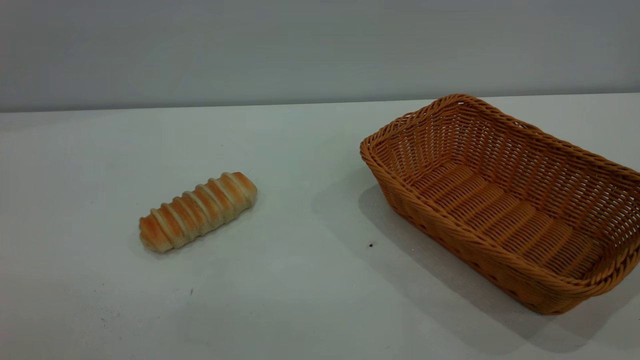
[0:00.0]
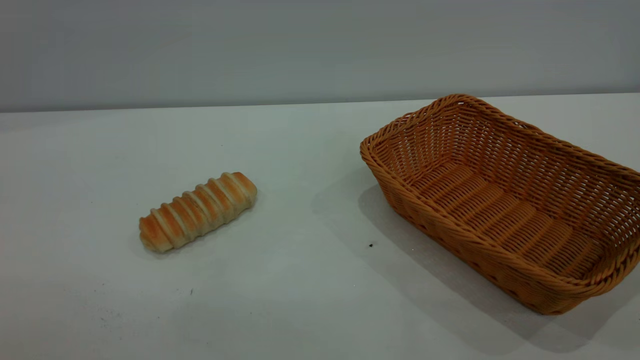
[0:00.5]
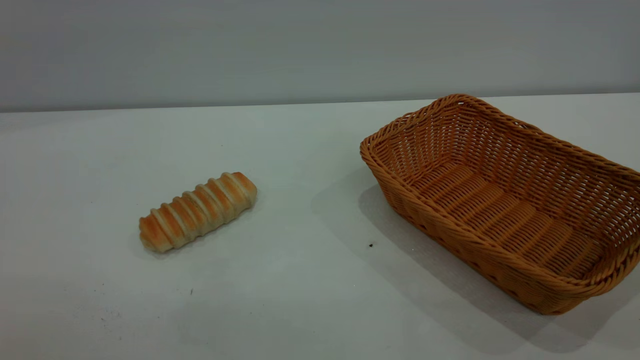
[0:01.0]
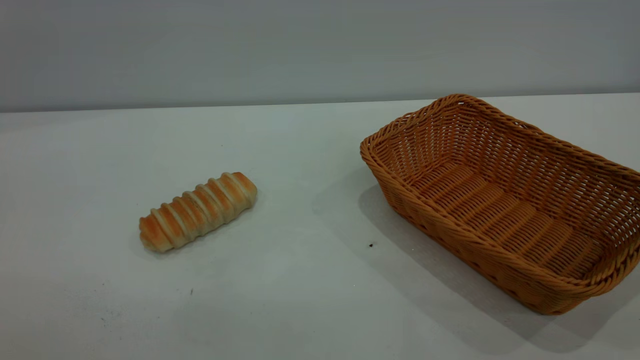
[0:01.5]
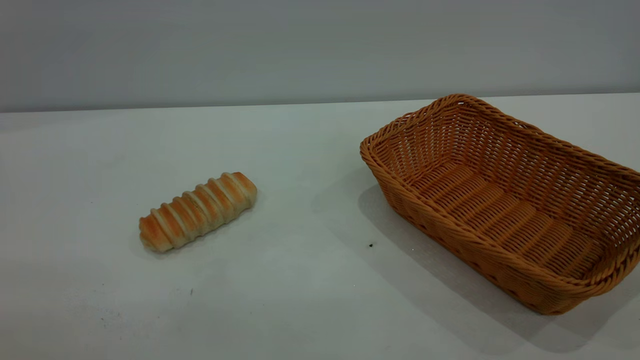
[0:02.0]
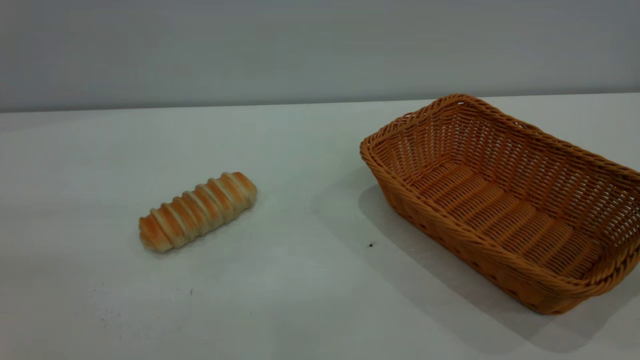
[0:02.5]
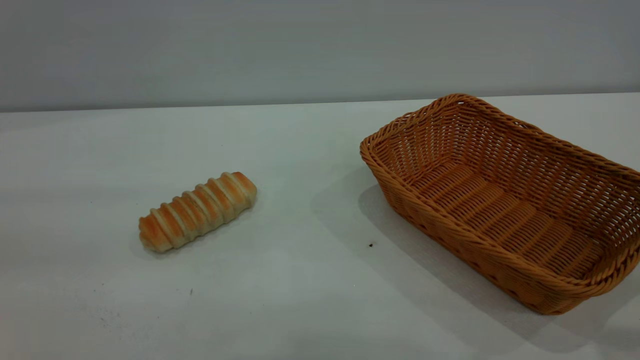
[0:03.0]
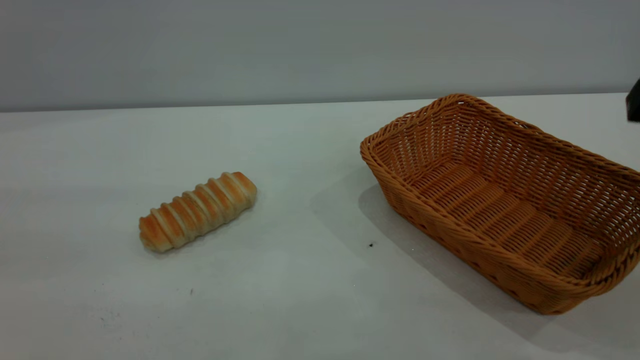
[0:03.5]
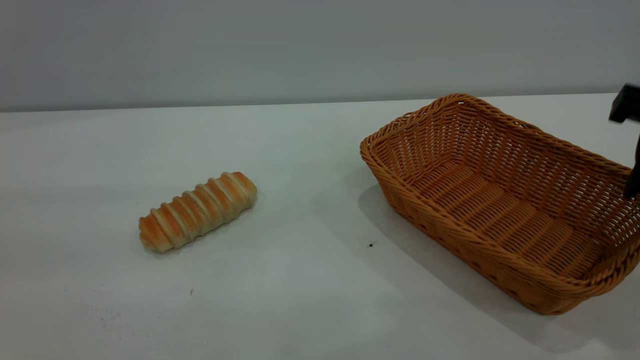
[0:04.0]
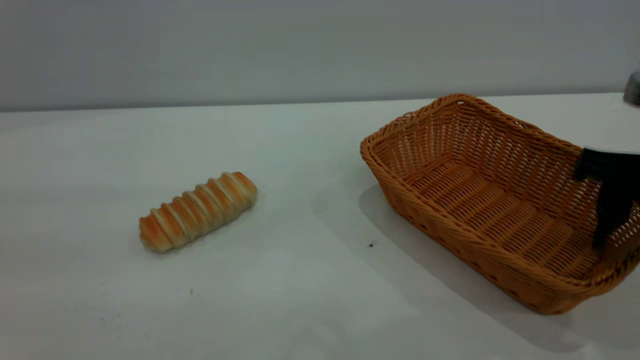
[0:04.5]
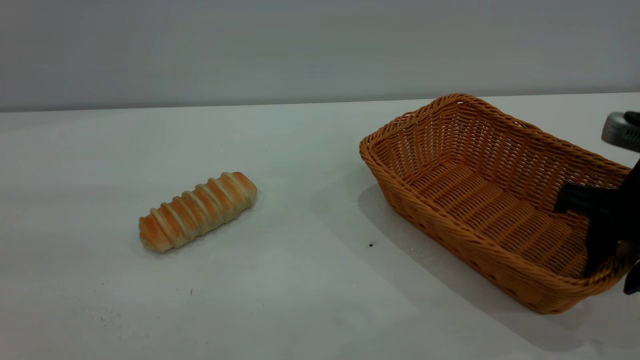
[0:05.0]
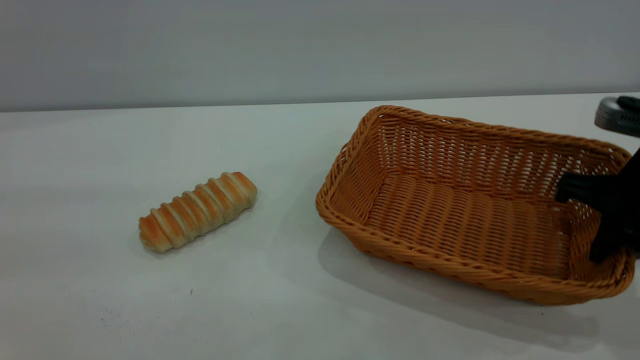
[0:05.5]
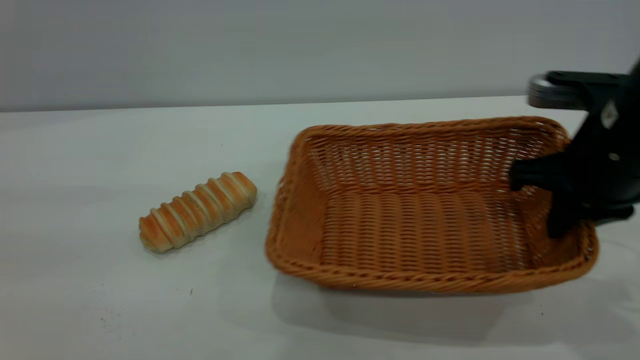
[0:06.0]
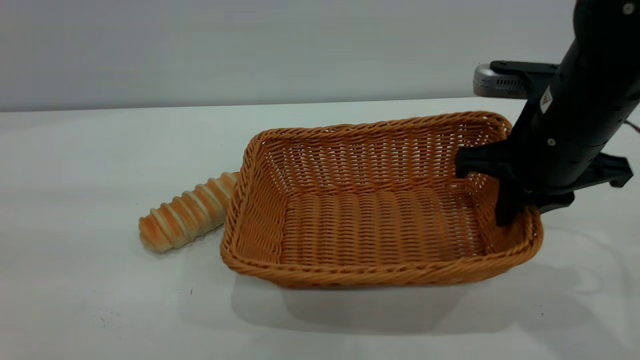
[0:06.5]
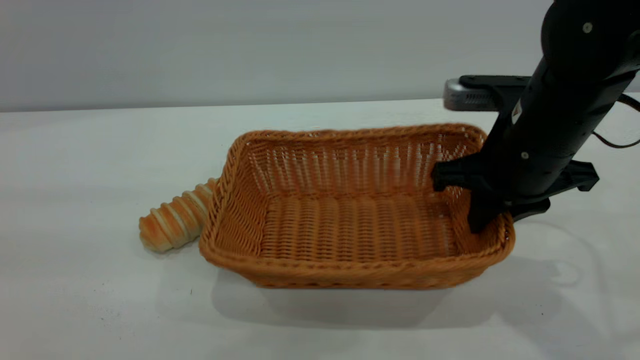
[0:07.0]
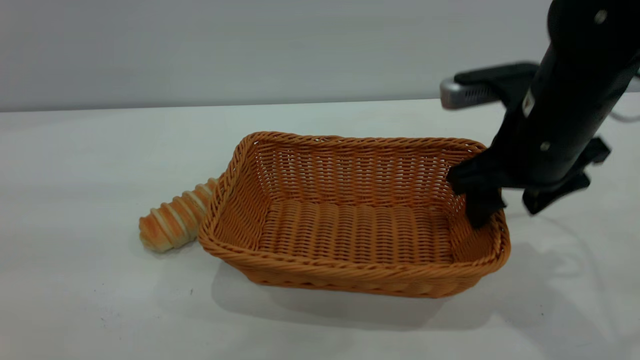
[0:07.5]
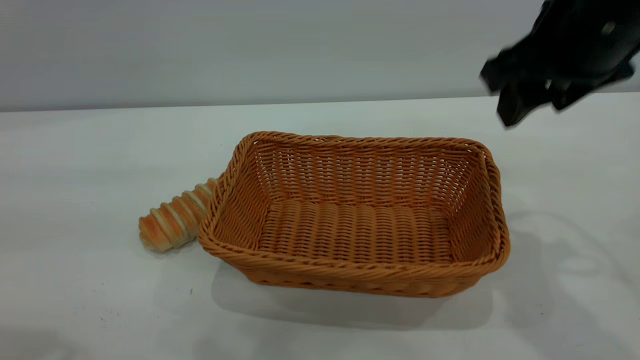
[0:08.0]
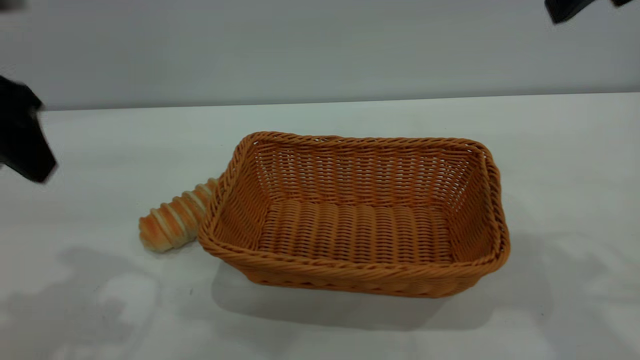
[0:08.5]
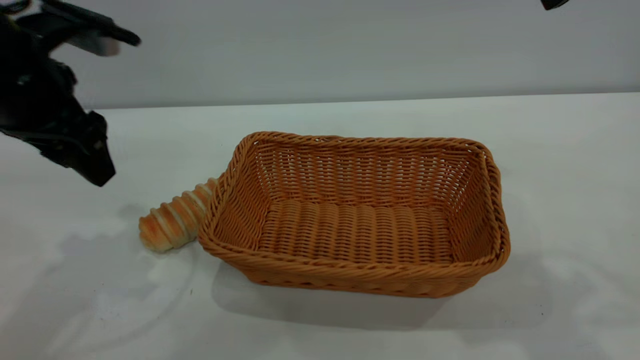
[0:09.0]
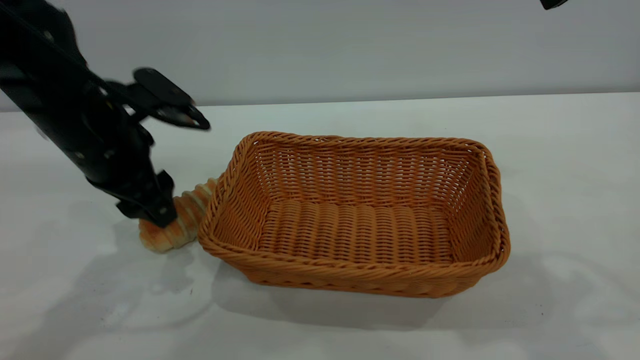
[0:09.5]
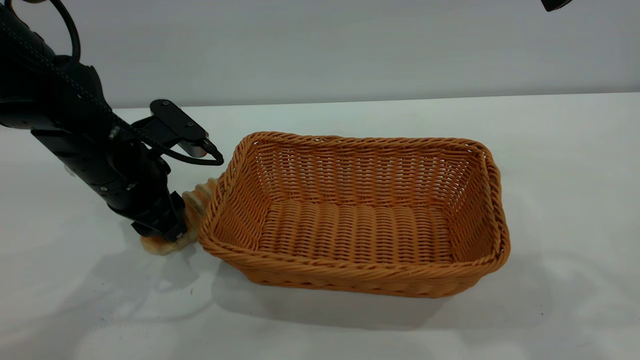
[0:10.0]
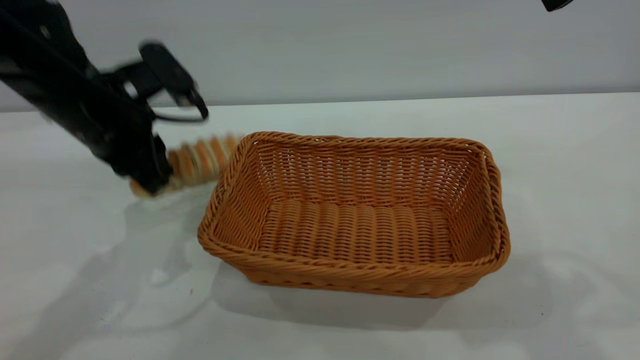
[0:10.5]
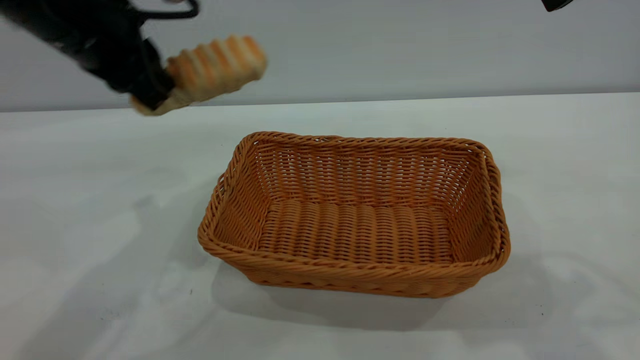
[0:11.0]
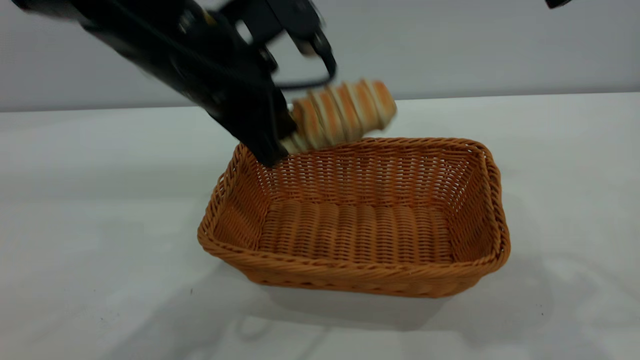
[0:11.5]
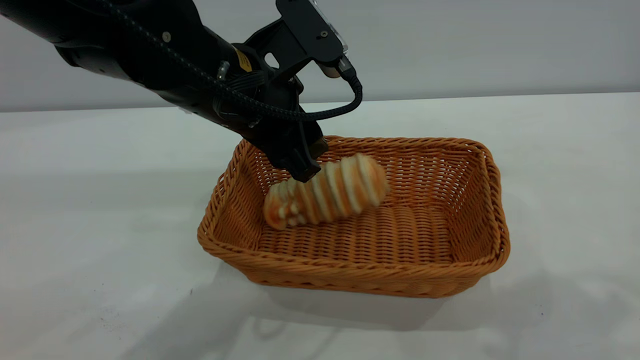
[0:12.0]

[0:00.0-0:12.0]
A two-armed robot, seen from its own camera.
Task of the whole recording: One hand grasps the yellow basket and places it in the middle of the table, while the other hand picks up the long bread and puts it into the yellow basket.
Step, 0:00.0 to 0:07.5: Move the basket to the center of view.
0:04.0 to 0:06.0: The right gripper moves downward, about 5 cm, and closes its fingers.
0:06.0 to 0:08.0: The right gripper is displaced upward by about 10 cm, and opens its fingers, while the left gripper is displaced forward by roughly 5 cm.
0:08.0 to 0:10.0: The right gripper heads upward and backward, covering approximately 10 cm. Meanwhile the left gripper travels downward and forward by roughly 30 cm, and closes its fingers.
0:10.0 to 0:12.0: The left gripper is displaced to the right and upward by about 15 cm, and opens.

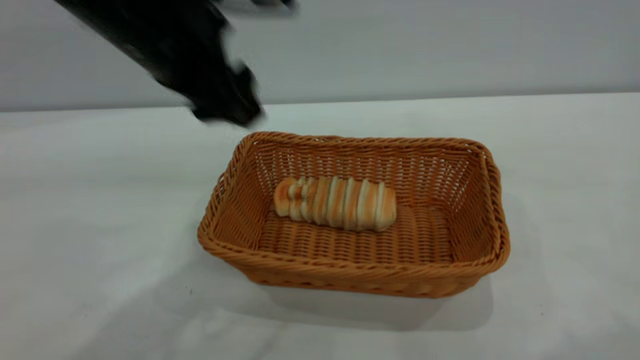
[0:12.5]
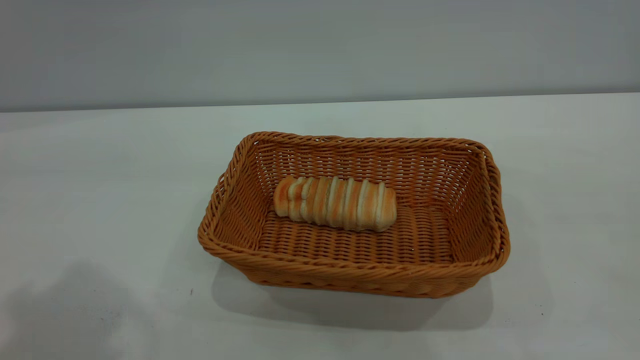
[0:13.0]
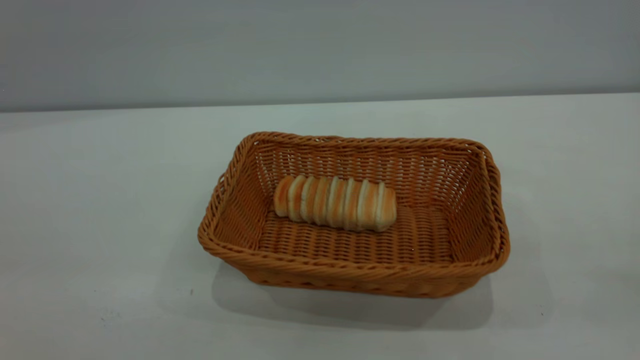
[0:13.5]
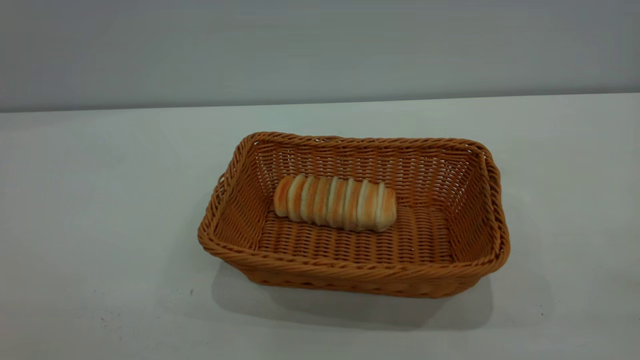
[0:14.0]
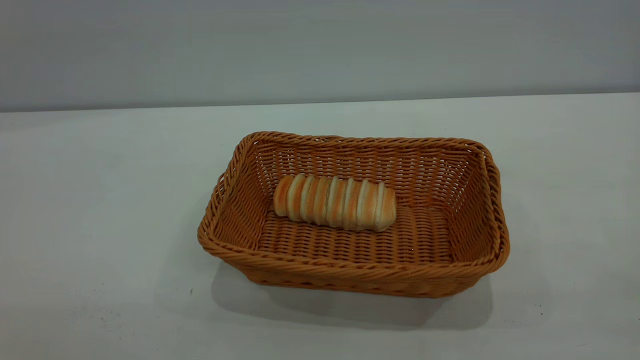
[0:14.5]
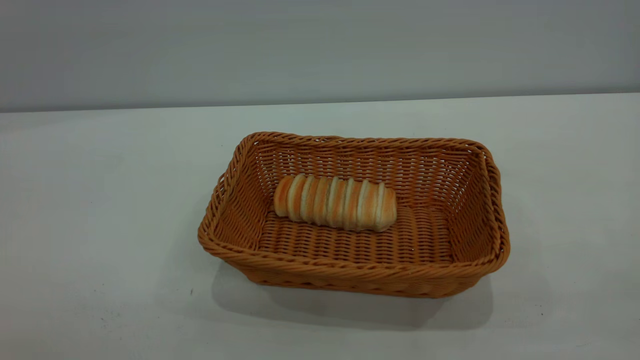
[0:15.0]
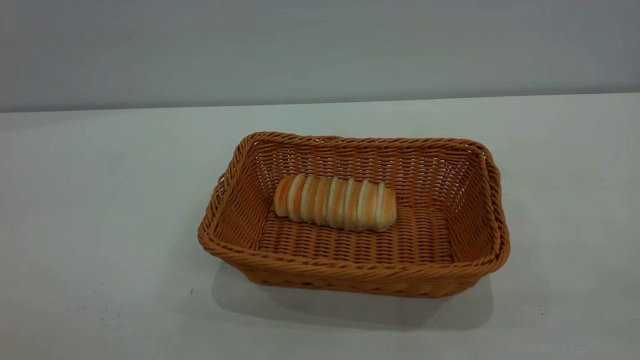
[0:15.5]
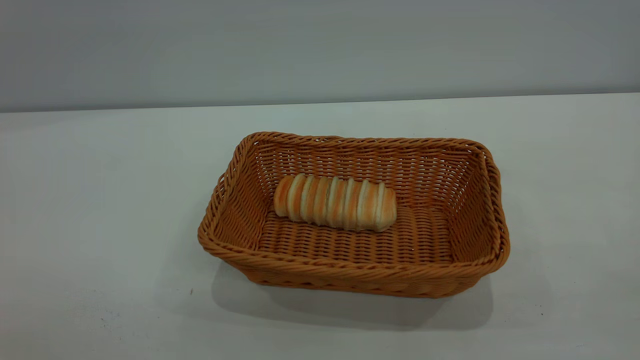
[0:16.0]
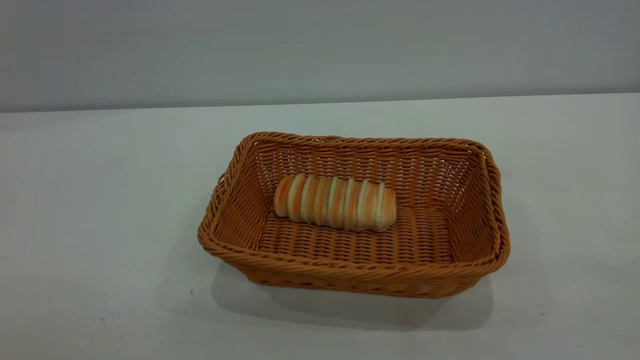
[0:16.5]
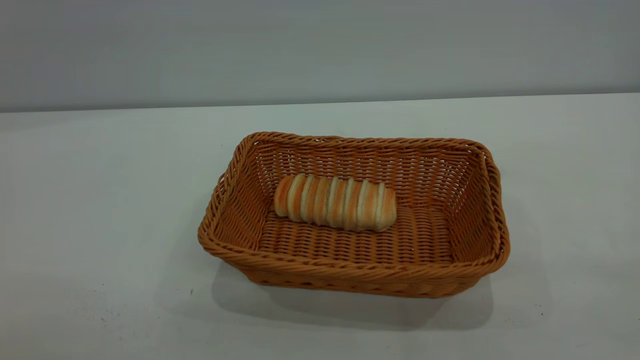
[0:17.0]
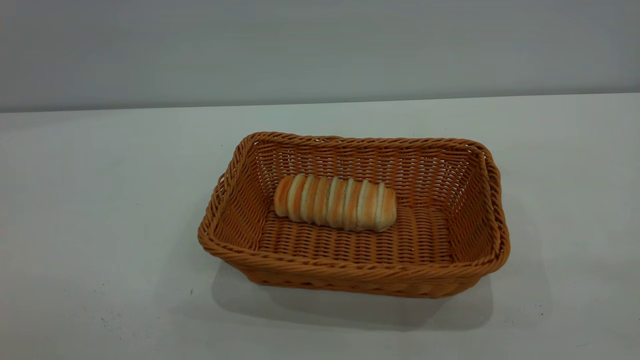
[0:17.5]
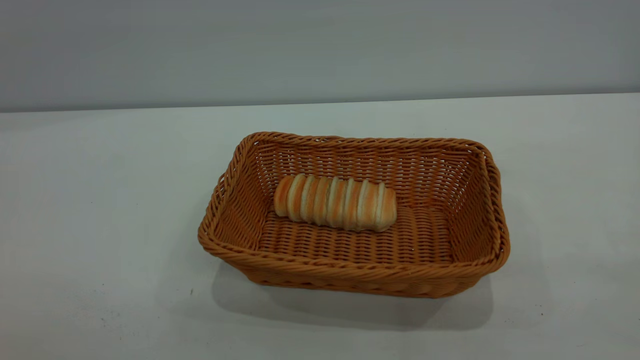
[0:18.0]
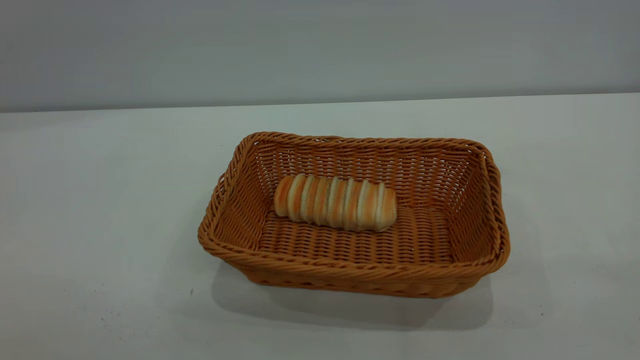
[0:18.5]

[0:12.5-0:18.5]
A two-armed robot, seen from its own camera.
Task of the whole recording: One hand grasps the yellow basket and places it in the middle of the table, while the other hand picks up the long bread and puts it into the yellow basket.
0:12.5 to 0:14.5: The left gripper travels backward and to the left by approximately 35 cm, while the right gripper goes about 20 cm backward, downward and to the right.
0:16.5 to 0:18.5: Neither gripper changes place.
